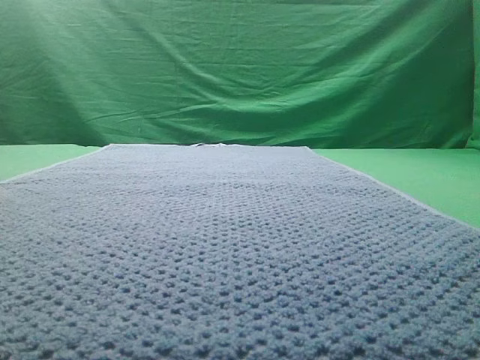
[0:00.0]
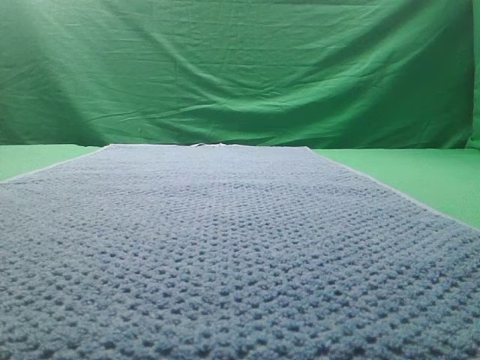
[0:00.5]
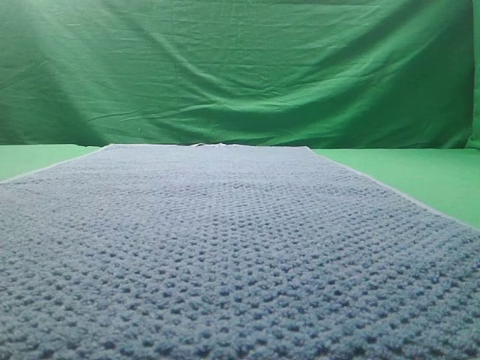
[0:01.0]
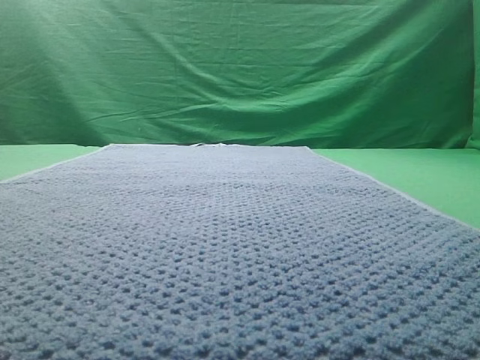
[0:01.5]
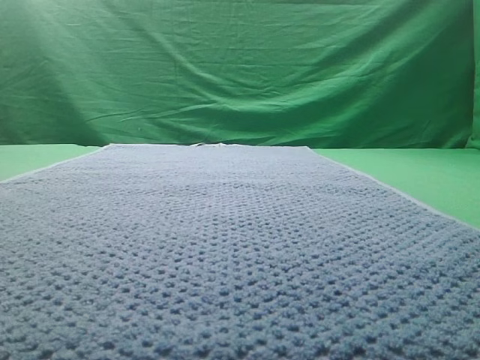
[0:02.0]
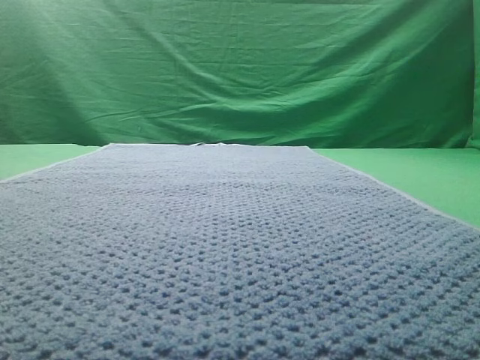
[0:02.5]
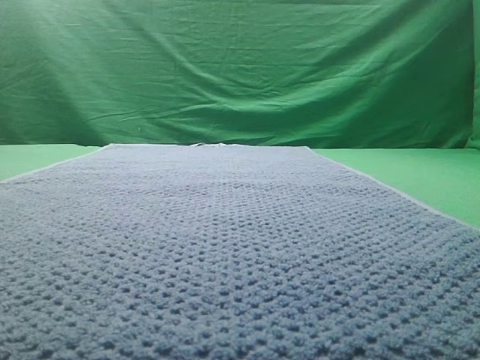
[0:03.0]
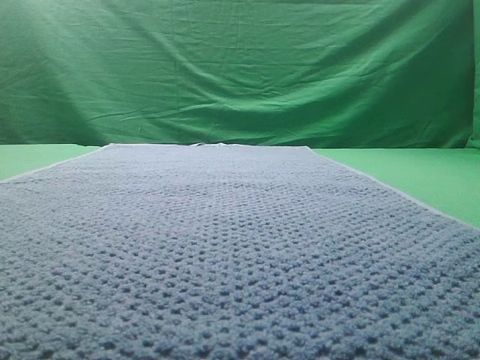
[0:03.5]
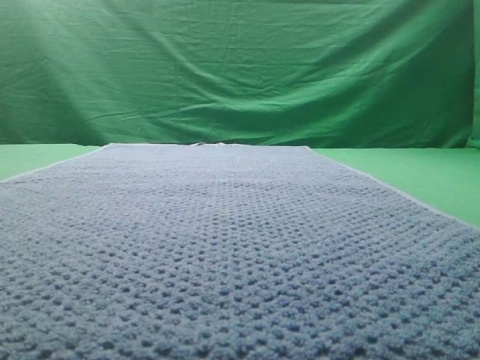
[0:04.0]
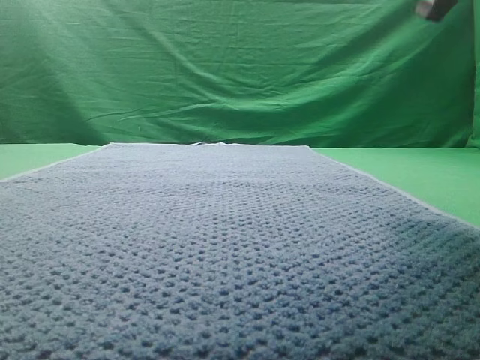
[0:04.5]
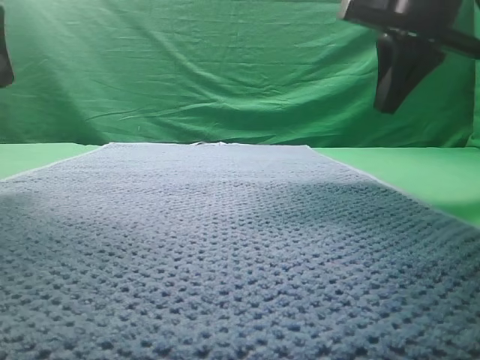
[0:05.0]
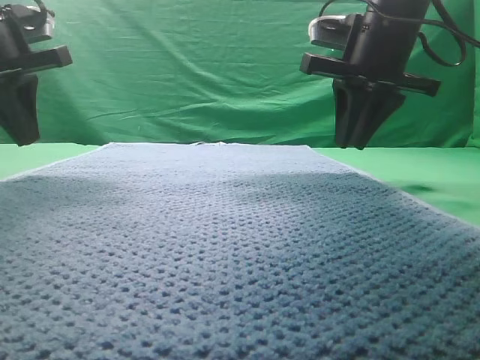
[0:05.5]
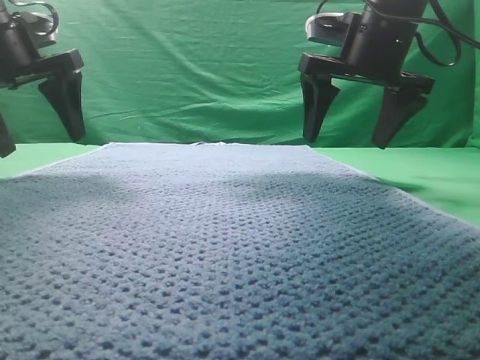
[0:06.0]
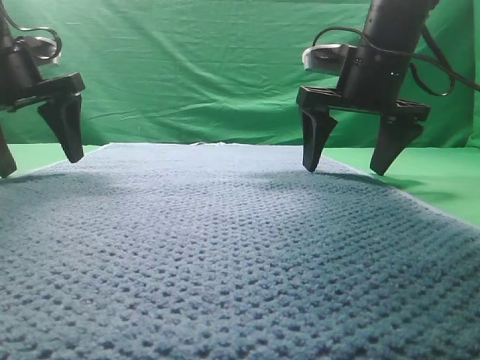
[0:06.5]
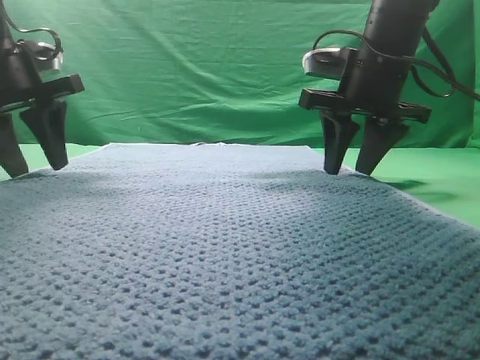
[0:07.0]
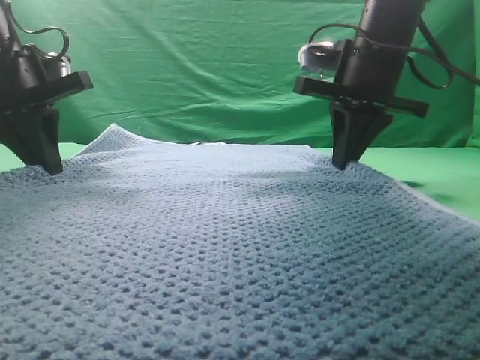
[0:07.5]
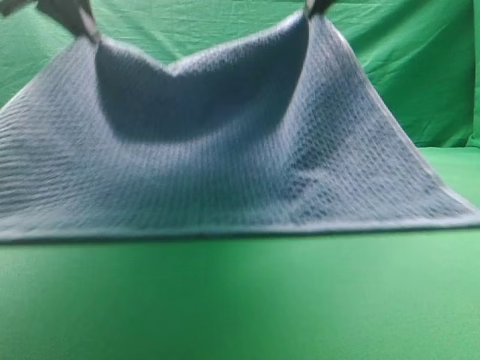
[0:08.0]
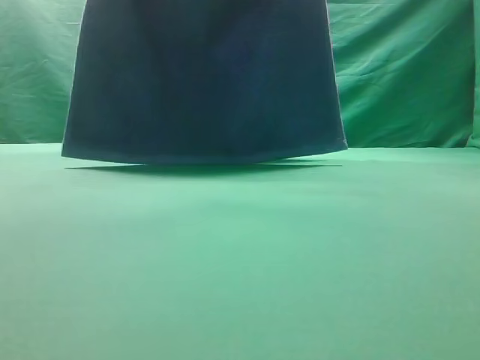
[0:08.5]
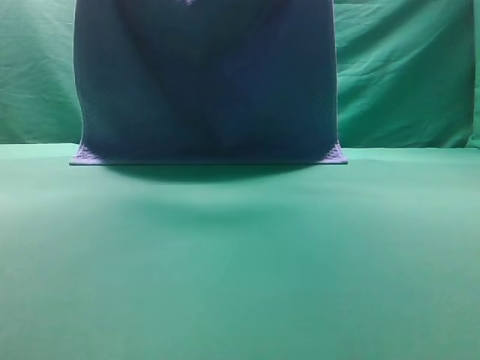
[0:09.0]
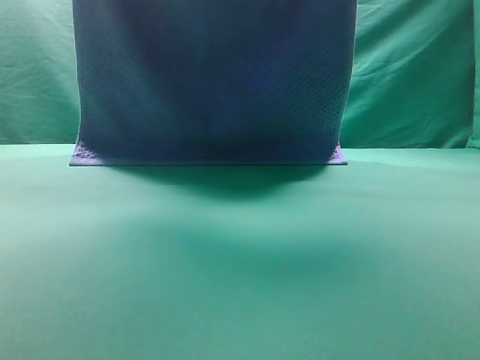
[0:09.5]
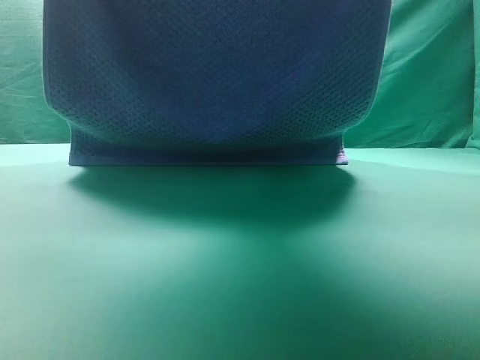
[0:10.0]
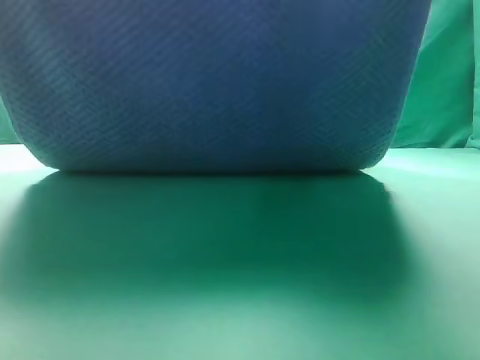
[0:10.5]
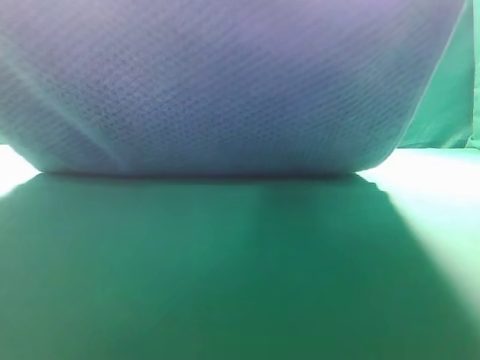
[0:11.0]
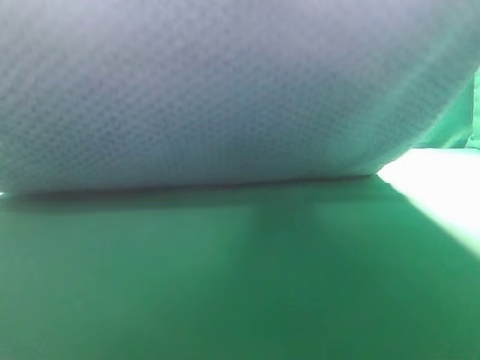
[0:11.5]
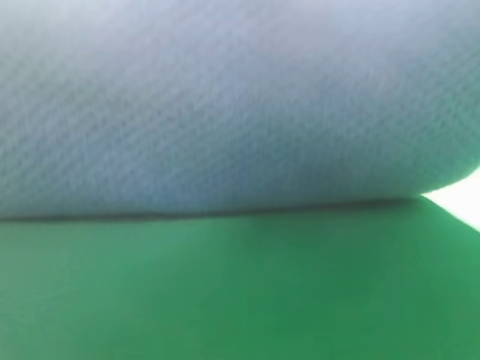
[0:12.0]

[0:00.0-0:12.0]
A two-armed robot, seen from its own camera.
Task of the whole recording: fold the towel on the table twice.
Step, 0:00.0 to 0:08.0: pick up the towel with two arm.

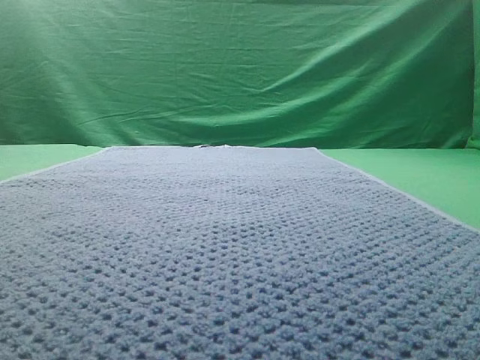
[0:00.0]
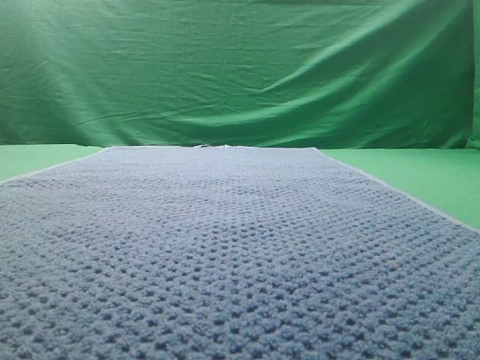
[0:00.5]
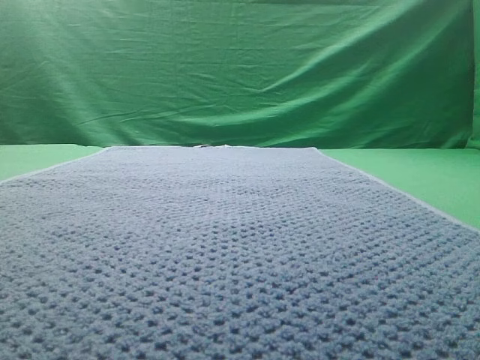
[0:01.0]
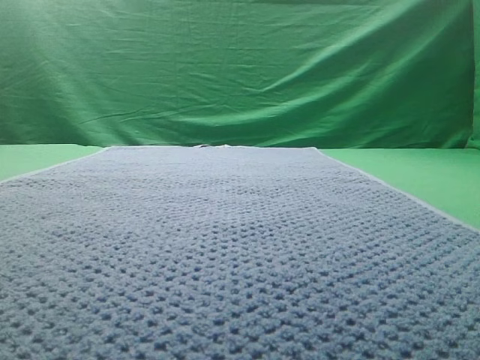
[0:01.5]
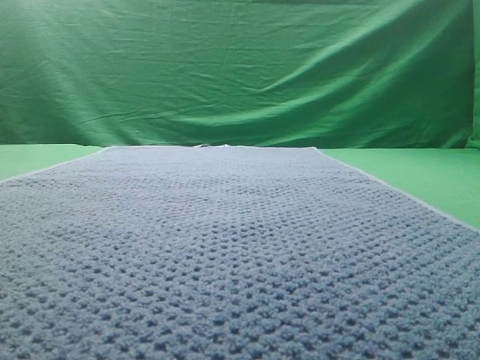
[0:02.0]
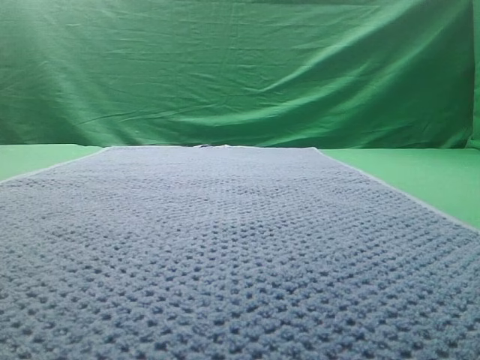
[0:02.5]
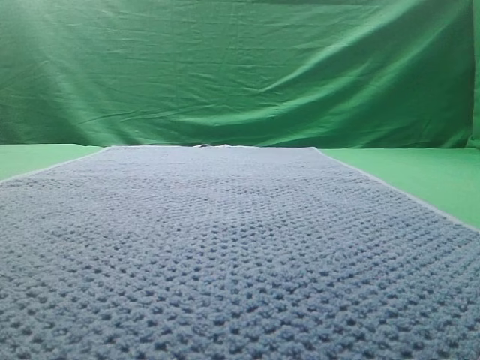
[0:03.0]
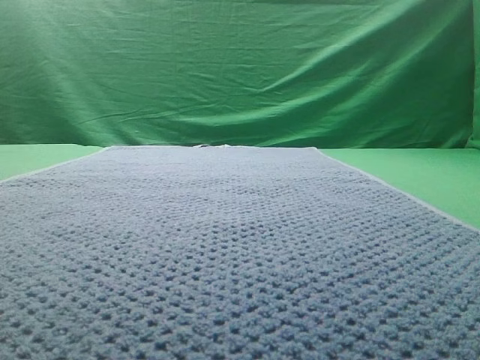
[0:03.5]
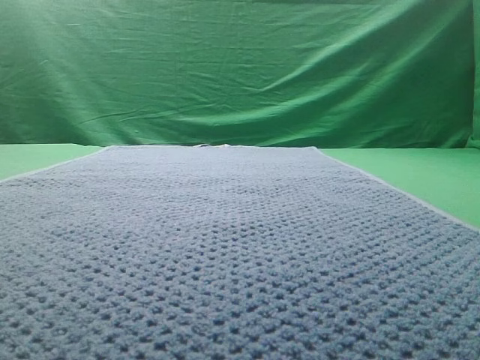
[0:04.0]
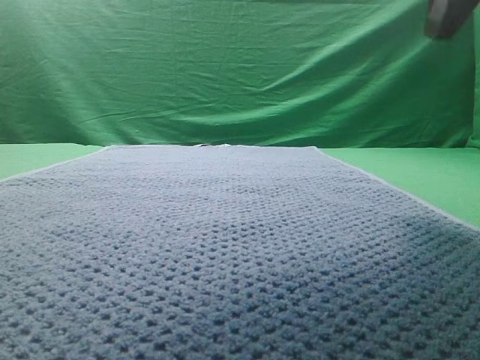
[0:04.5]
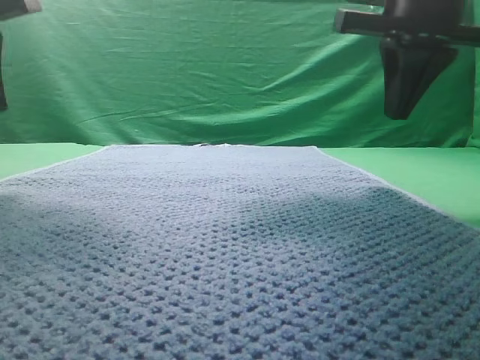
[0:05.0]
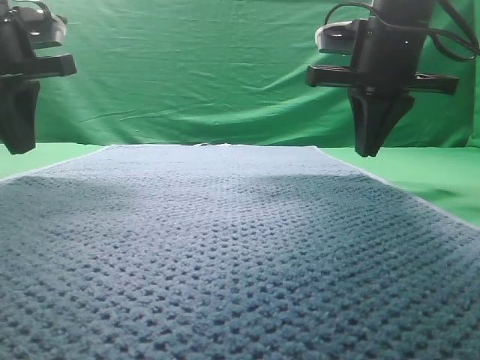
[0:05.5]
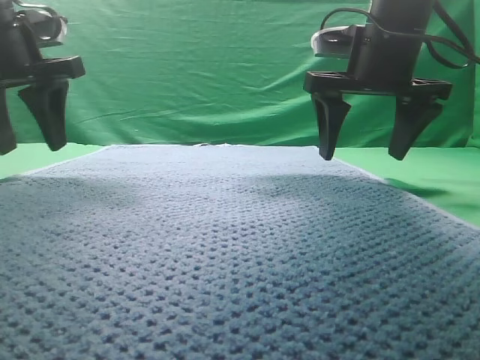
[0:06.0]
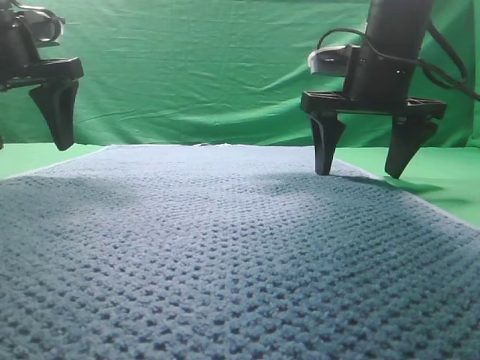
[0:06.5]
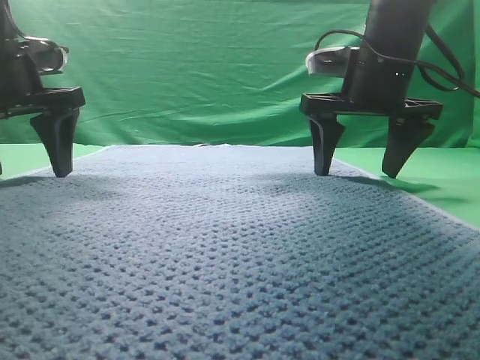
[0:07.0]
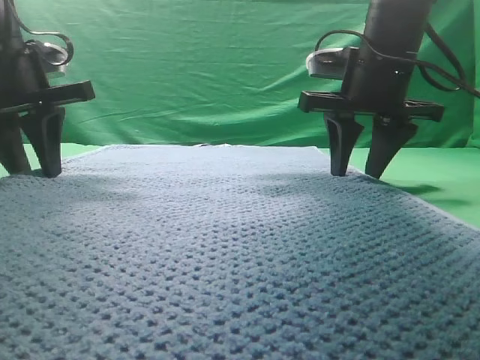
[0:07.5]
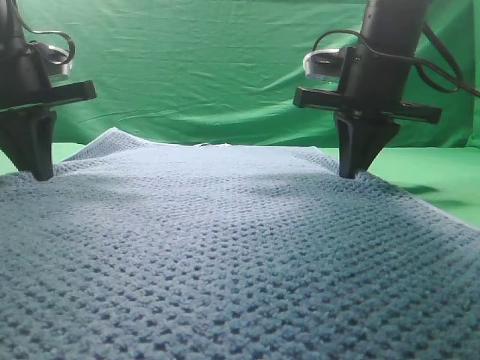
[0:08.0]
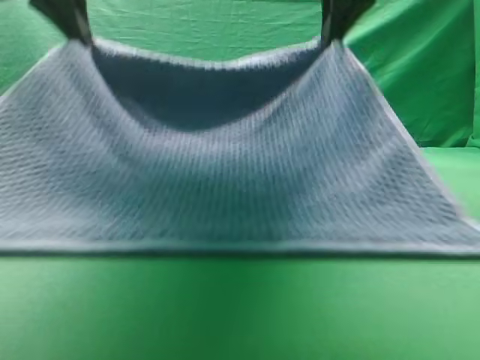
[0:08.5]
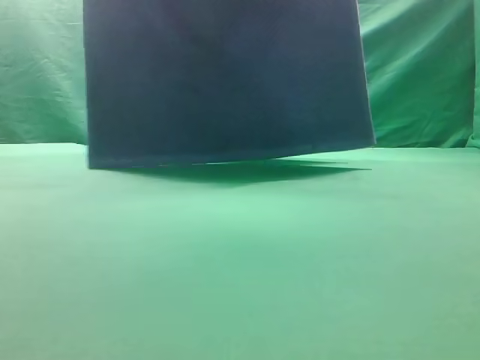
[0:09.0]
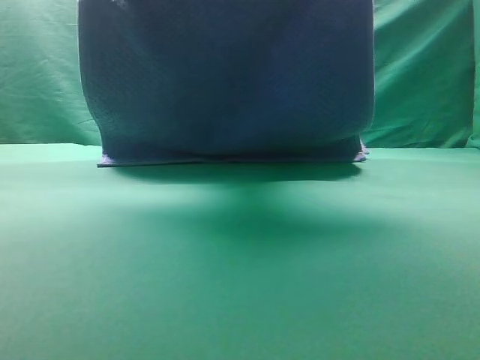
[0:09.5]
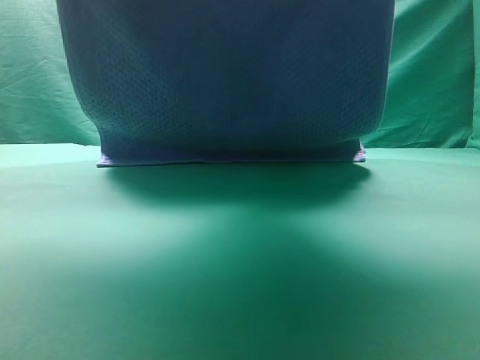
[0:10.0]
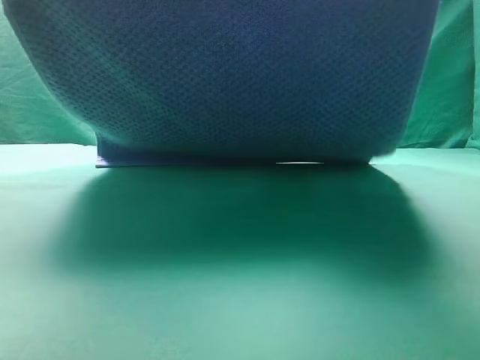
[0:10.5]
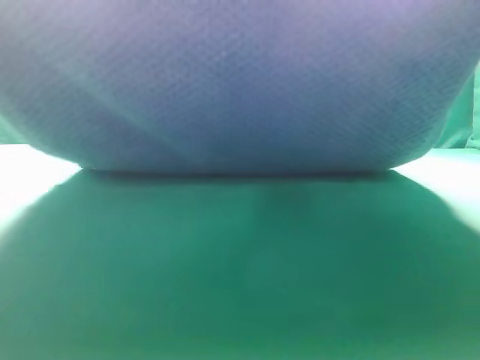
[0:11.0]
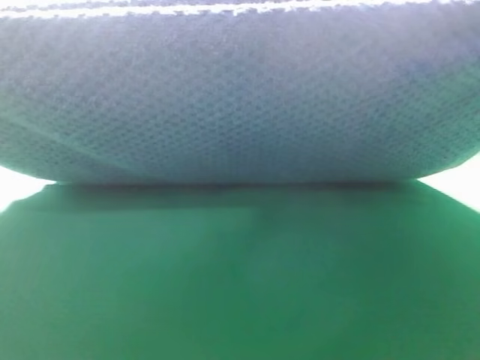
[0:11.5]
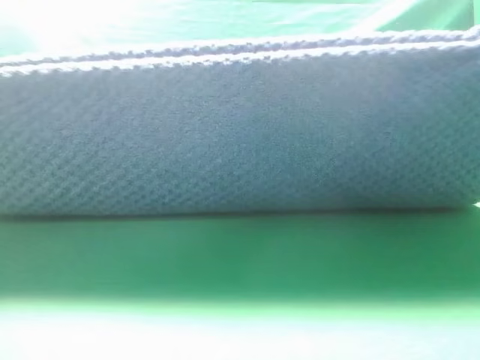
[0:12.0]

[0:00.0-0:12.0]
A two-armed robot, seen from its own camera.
Task of the whole recording: fold the towel on the table twice.
Step, 0:00.0 to 0:08.5: pick up the towel with two arm.
